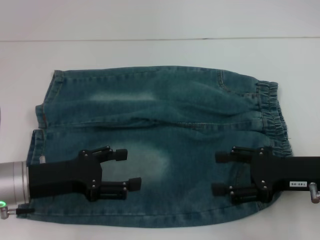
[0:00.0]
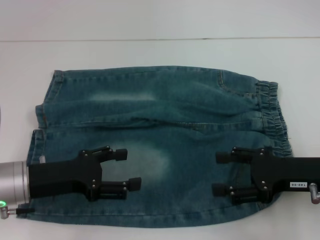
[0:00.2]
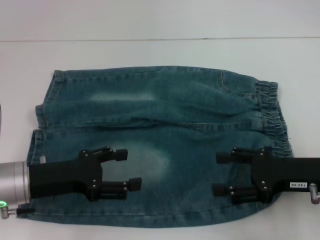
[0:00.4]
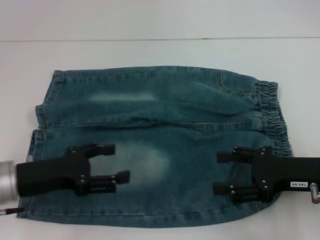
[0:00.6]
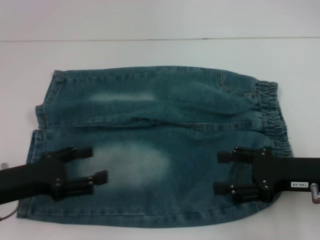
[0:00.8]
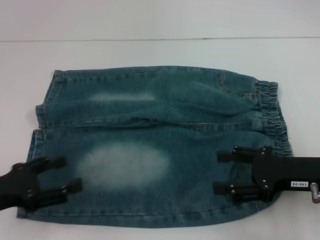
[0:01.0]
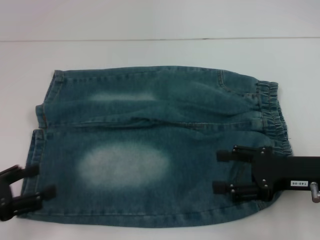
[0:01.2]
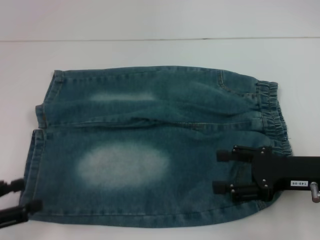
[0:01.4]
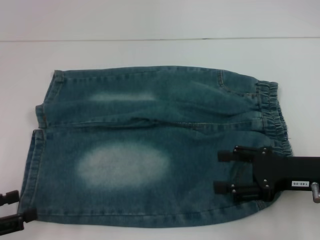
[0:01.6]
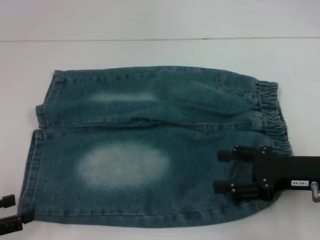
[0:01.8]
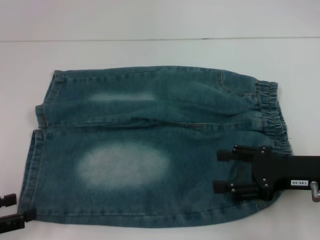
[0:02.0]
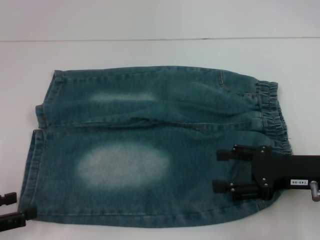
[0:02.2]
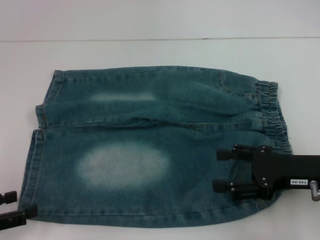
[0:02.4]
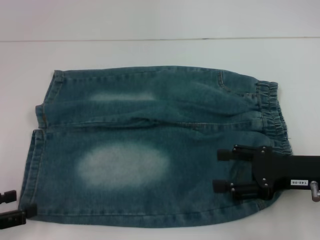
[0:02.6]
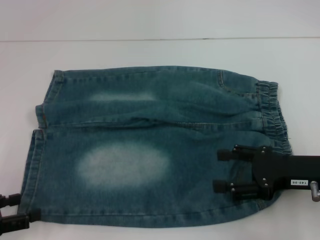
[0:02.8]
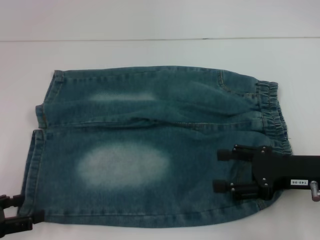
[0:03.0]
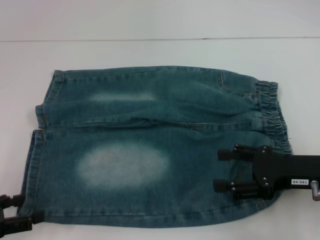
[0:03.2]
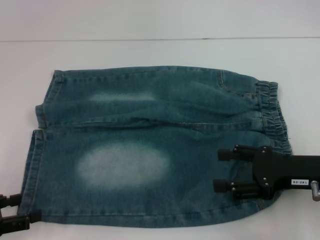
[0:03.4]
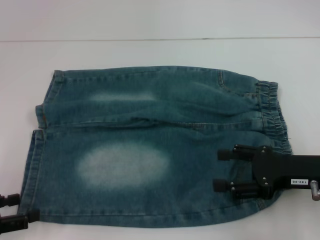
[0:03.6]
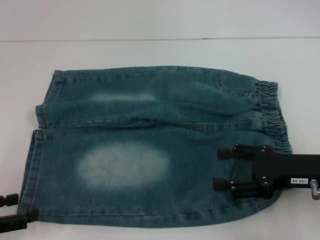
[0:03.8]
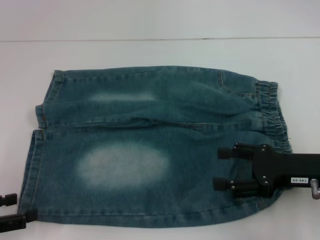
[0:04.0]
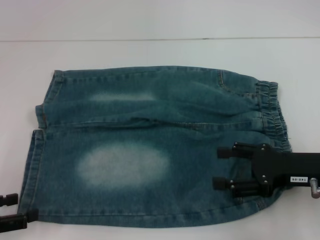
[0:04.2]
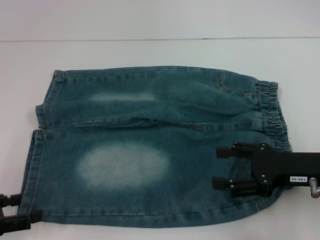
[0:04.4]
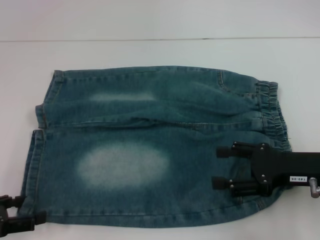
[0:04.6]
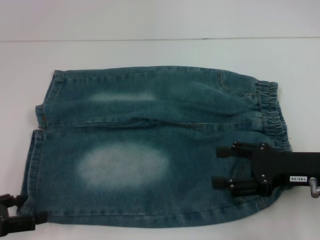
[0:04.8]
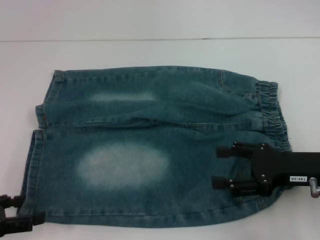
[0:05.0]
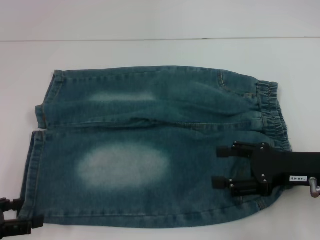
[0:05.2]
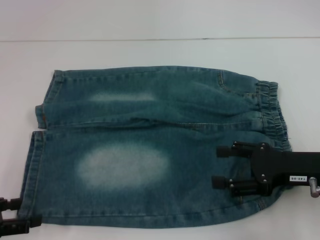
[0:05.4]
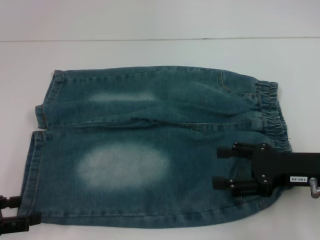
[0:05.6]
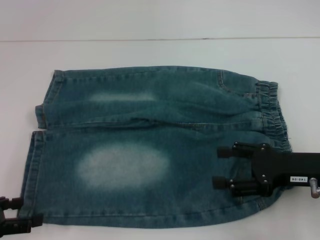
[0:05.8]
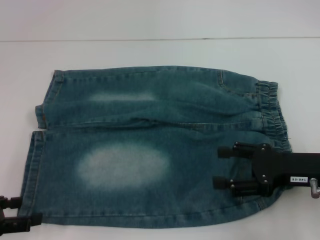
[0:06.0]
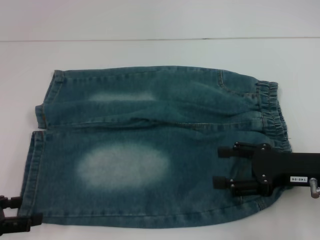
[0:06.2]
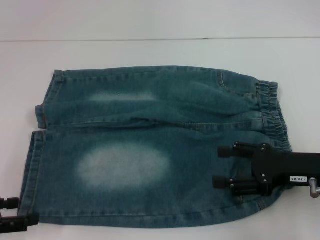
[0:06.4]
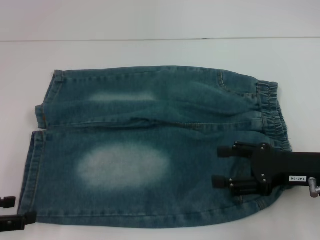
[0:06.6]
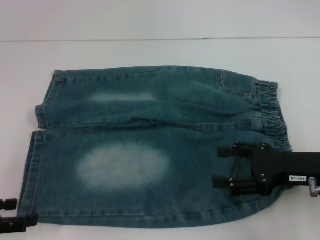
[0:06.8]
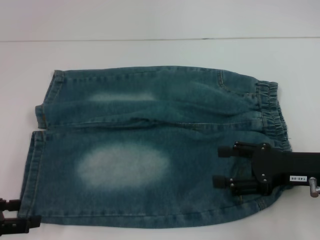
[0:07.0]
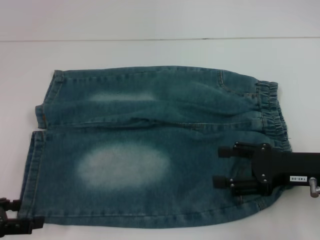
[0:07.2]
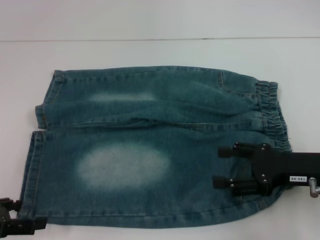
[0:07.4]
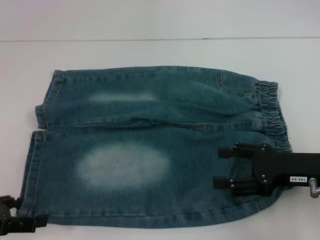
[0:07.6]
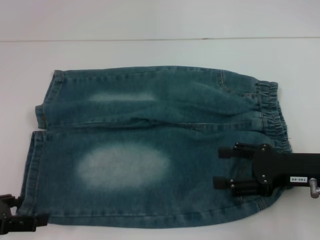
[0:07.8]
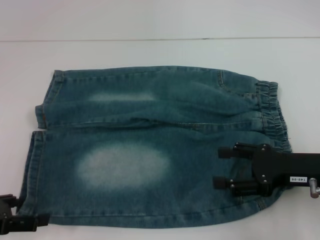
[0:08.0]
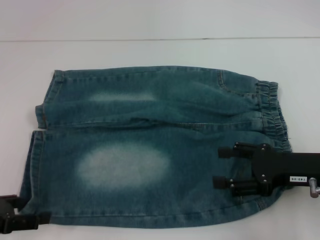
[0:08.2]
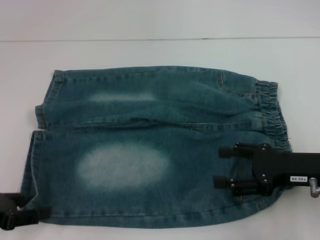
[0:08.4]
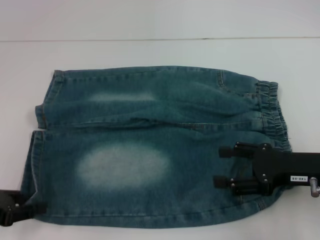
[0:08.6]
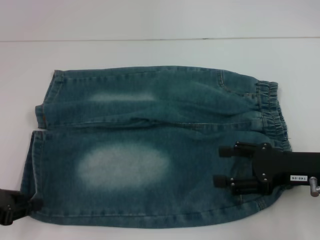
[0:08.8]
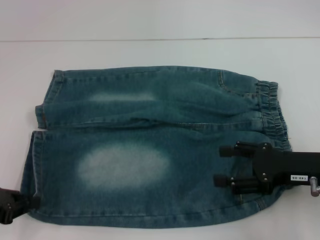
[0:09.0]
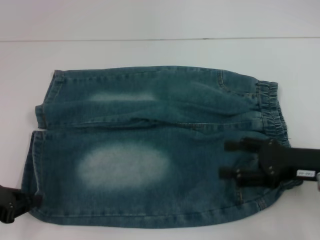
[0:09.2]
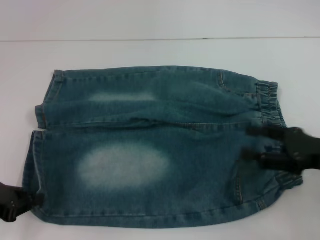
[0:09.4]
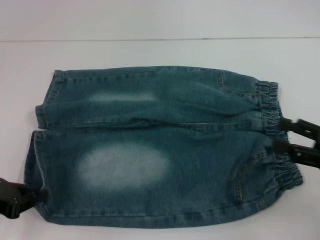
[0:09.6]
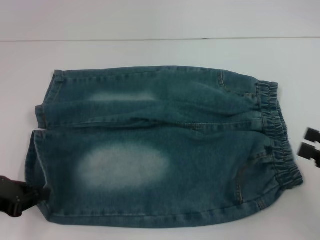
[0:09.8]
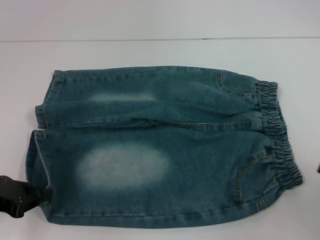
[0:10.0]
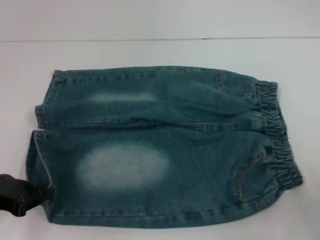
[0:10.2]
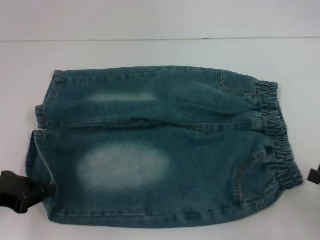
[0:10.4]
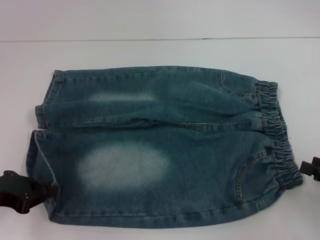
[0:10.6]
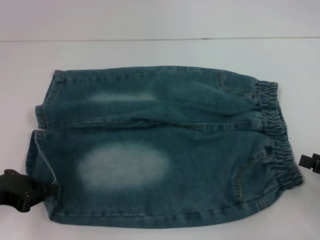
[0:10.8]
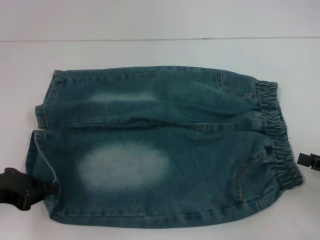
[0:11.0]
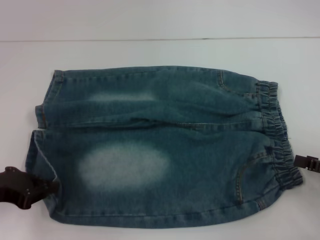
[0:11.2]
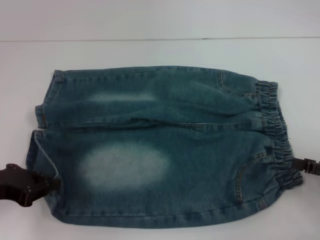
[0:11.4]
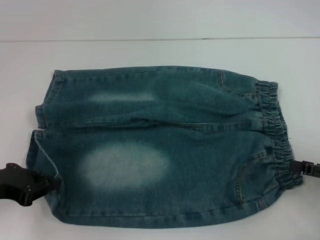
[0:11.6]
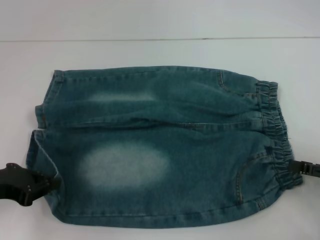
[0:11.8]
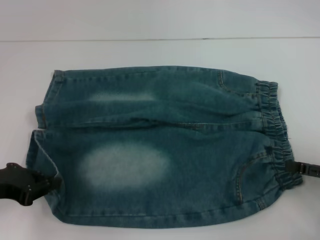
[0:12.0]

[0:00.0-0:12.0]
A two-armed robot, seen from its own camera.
Step, 0:00.0 to 0:09.2: Grab the lower left pant leg with your left hand.
0:00.0 to 0:01.6: The left gripper shifts some 15 cm to the left and backward.
0:01.6 to 0:03.0: The grippers make only small movements.
0:03.0 to 0:04.4: Neither gripper changes place.
0:07.6 to 0:09.0: The left gripper closes.
0:09.0 to 0:10.4: The right gripper heads to the right and backward, covering about 15 cm.
0:10.4 to 0:12.0: The right gripper shifts some 5 cm forward.

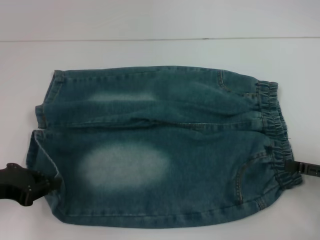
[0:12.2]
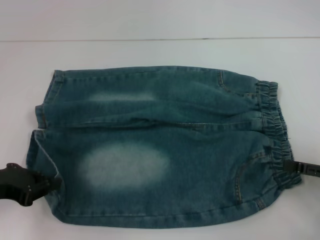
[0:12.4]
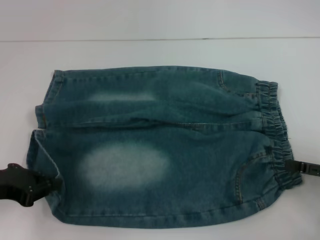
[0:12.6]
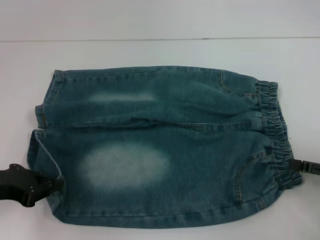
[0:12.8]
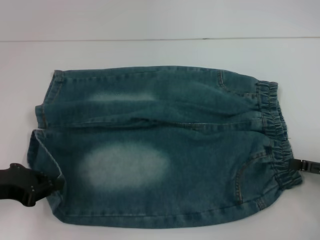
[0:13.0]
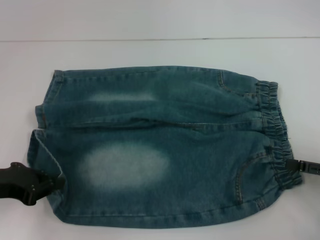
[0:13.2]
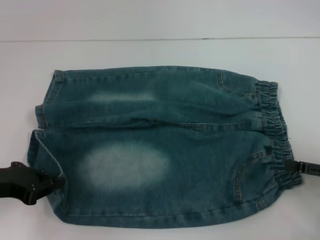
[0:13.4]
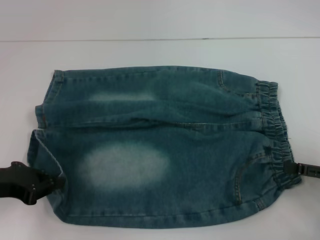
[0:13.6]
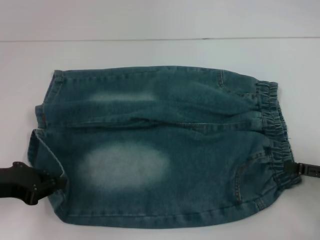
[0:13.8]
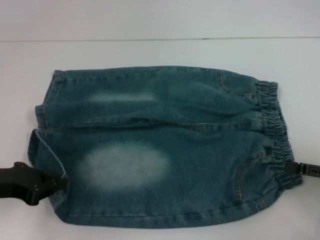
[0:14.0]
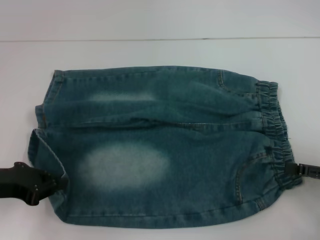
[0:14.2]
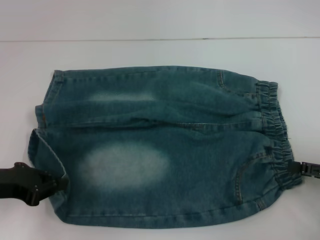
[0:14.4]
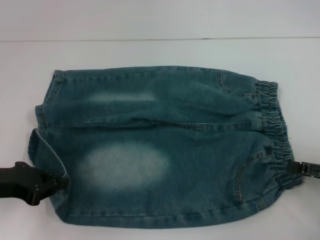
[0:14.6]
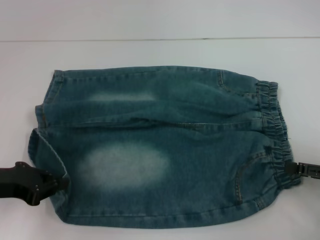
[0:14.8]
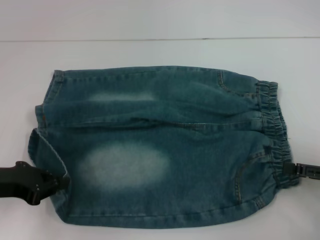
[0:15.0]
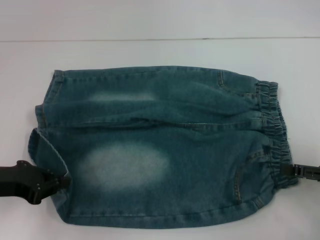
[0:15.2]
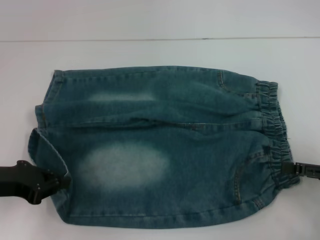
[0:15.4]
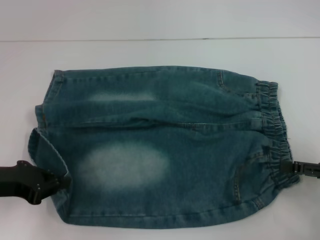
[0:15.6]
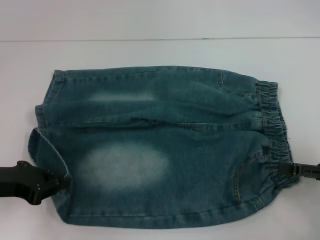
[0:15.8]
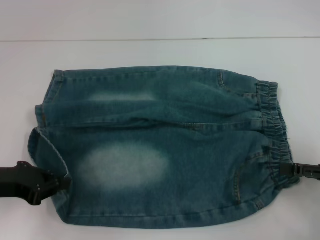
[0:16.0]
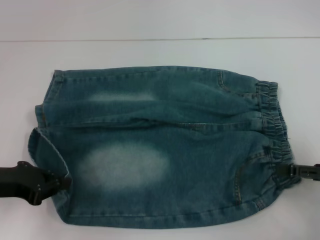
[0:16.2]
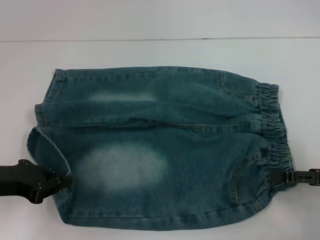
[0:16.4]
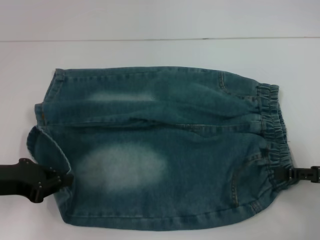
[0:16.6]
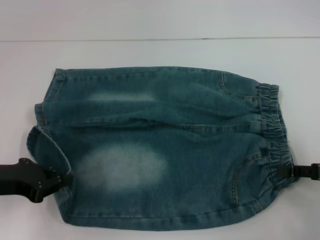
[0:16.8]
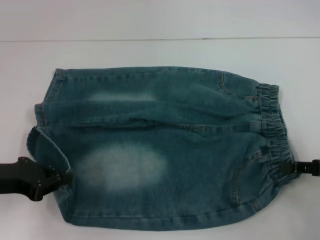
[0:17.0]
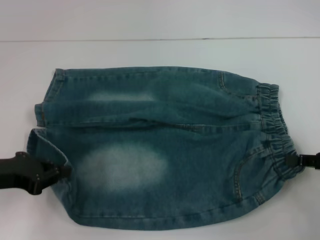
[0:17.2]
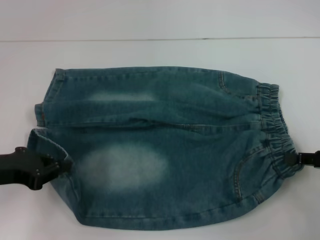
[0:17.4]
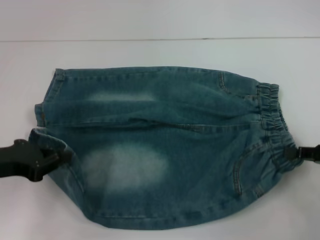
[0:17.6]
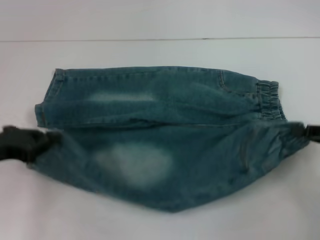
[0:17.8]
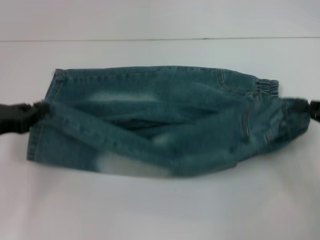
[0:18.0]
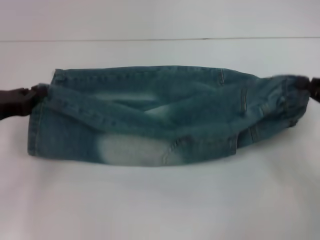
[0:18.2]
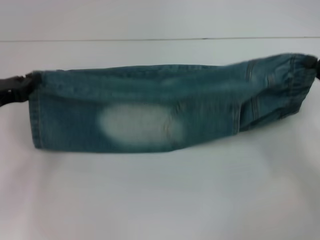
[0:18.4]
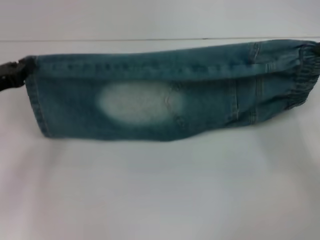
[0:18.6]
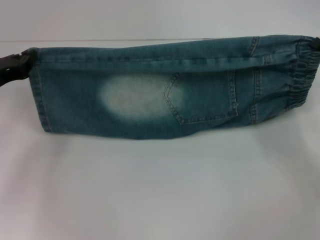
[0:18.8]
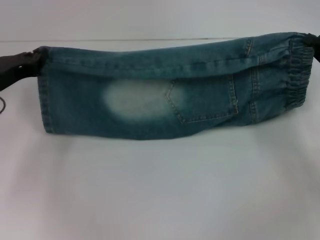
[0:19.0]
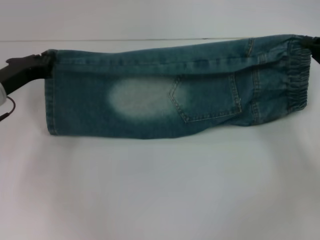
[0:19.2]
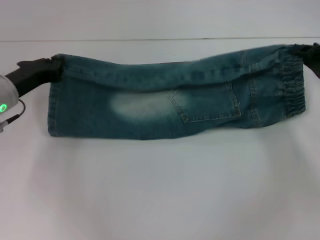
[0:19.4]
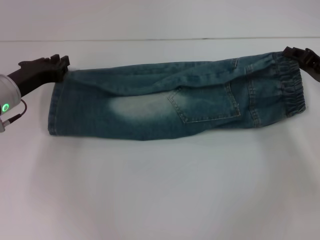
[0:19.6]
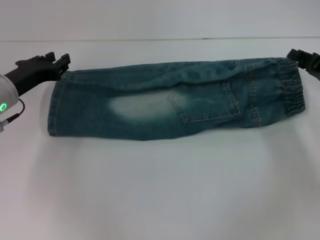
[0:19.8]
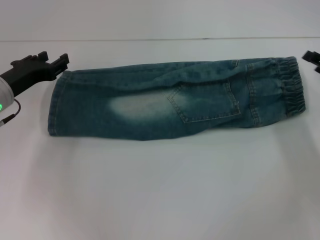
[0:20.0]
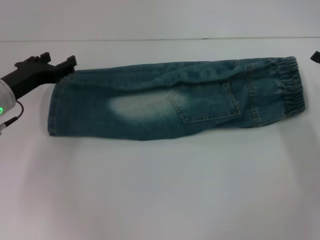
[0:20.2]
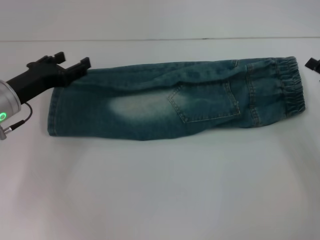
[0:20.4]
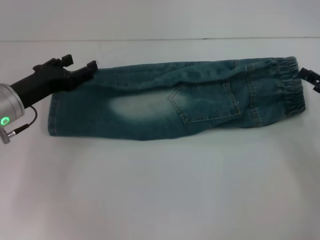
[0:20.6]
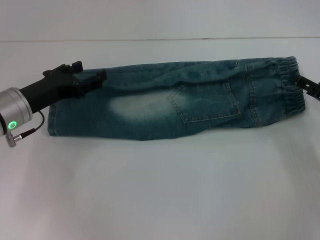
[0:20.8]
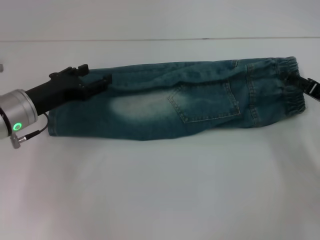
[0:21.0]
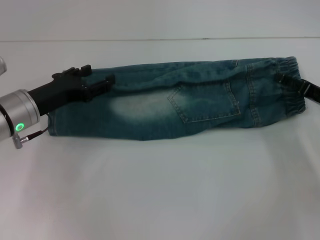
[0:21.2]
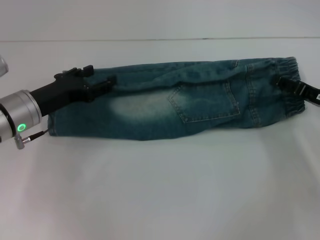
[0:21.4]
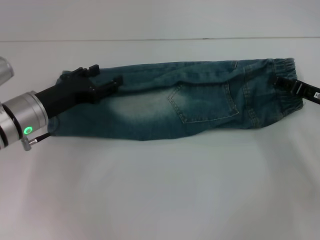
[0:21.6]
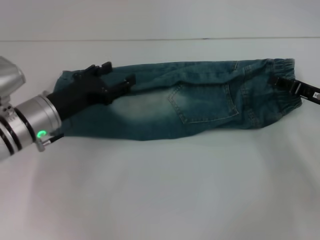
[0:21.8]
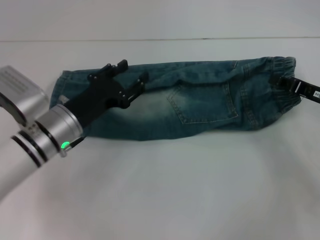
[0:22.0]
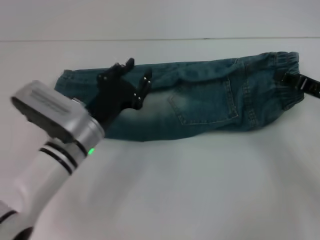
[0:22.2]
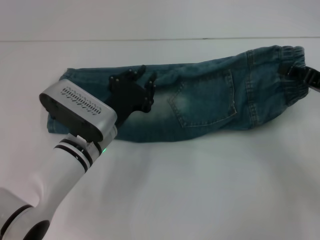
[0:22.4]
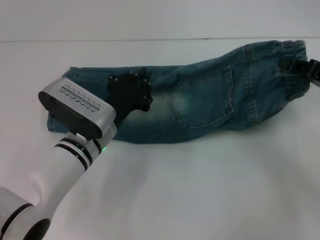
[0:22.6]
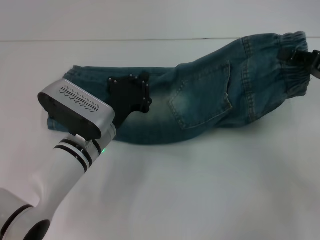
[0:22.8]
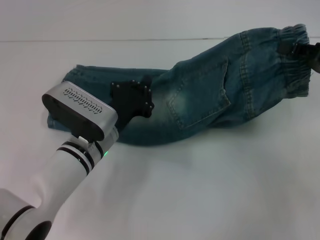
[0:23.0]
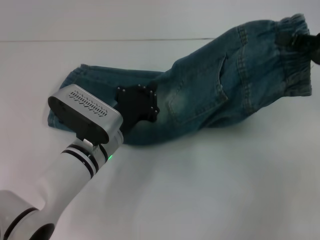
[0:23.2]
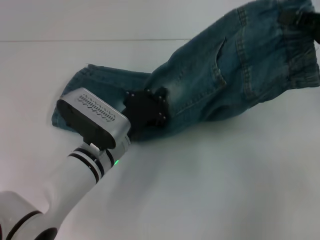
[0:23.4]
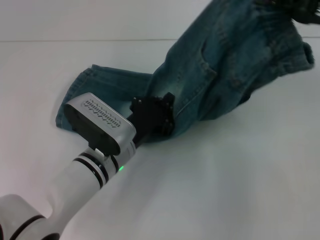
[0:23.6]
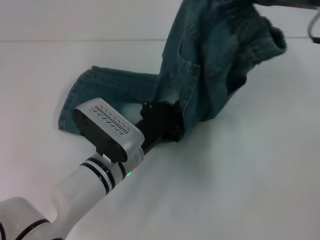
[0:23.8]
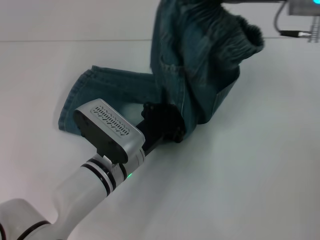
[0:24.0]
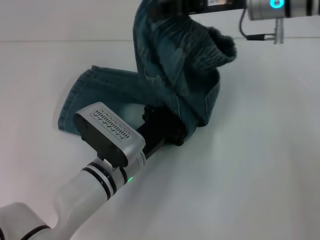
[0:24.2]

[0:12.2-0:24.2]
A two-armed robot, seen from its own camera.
Step, 0:12.2 to 0:17.0: Hold the lower right waistband with your right hand.
Step, 0:17.2 to 0:20.2: Fold upward with your right hand.
Step, 0:20.6 to 0:21.6: Grab the waistband with your right hand.
0:12.2 to 0:13.8: Neither gripper changes place.
0:13.8 to 0:15.2: Neither gripper changes place.
0:15.2 to 0:16.6: The grippers make only small movements.
0:16.6 to 0:18.2: The right gripper ends up some 5 cm from where it was, and closes its fingers.
0:18.2 to 0:19.8: The two grippers go about 5 cm forward.
0:19.8 to 0:21.2: The left gripper opens, while the right gripper opens up.
0:21.2 to 0:22.6: The left gripper is displaced to the right by about 10 cm, and closes its fingers. The right gripper is displaced upward by approximately 5 cm, and closes up.
0:22.6 to 0:24.2: The left gripper moves roughly 5 cm. The right gripper shifts roughly 25 cm to the left, upward and forward.
